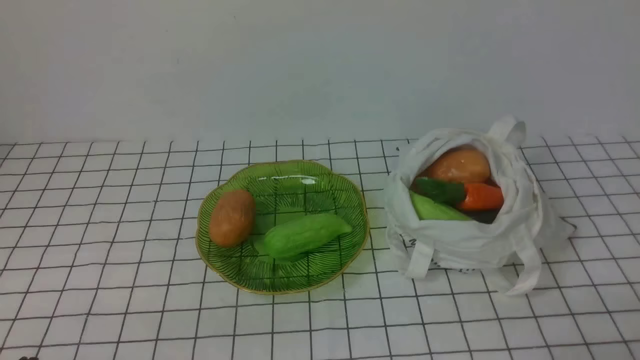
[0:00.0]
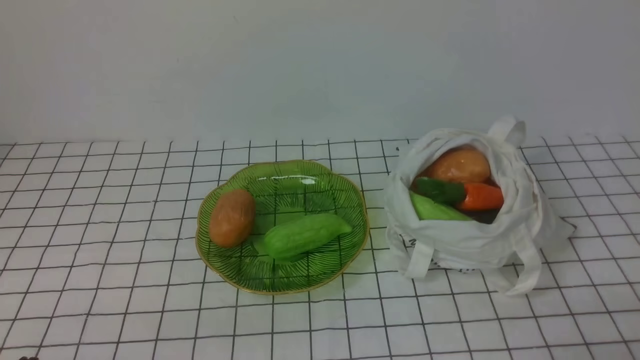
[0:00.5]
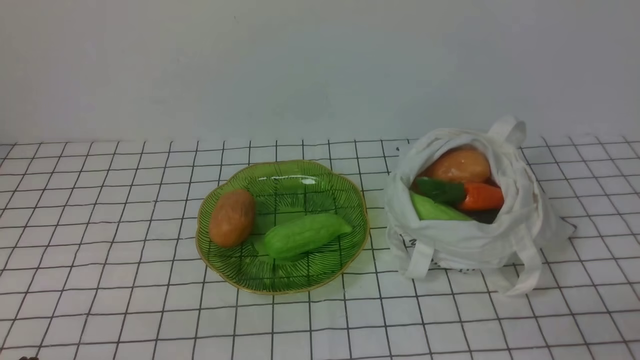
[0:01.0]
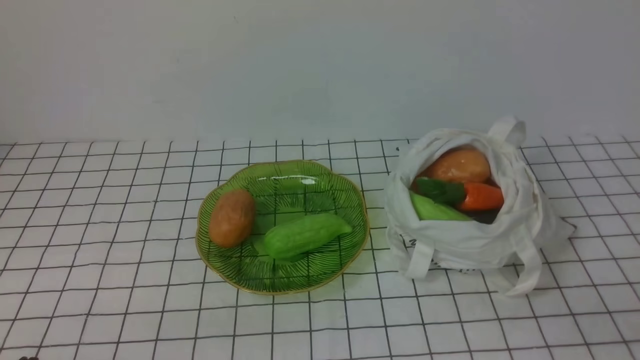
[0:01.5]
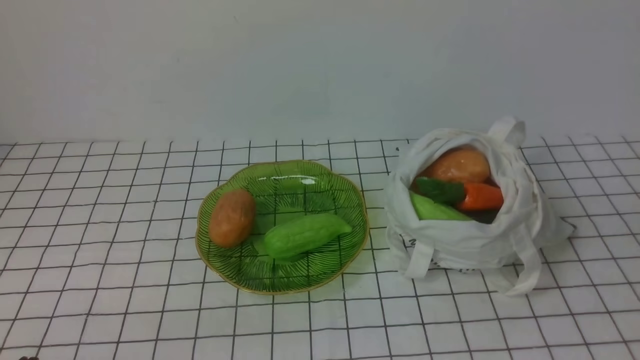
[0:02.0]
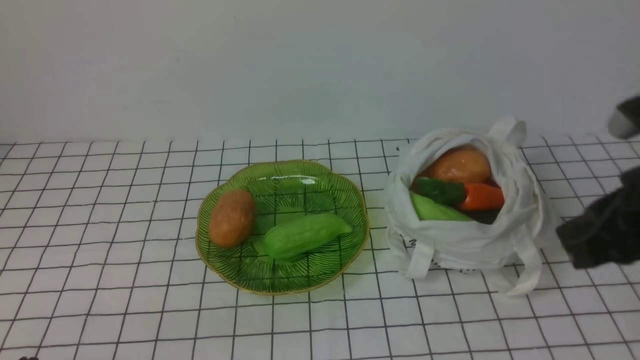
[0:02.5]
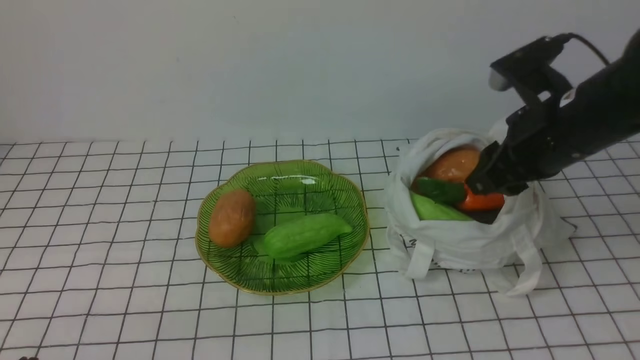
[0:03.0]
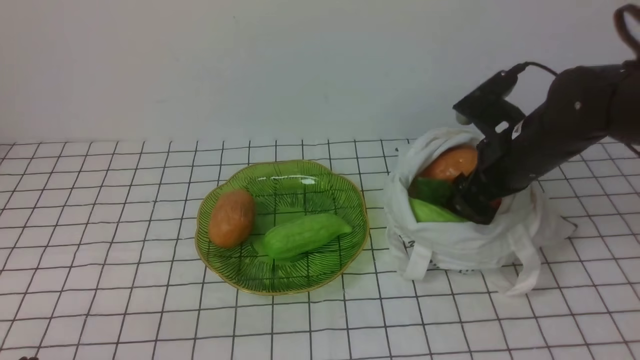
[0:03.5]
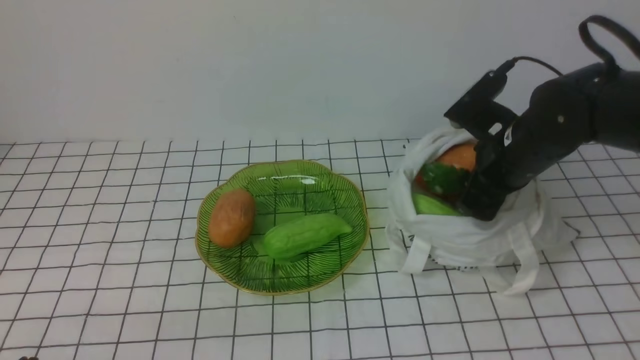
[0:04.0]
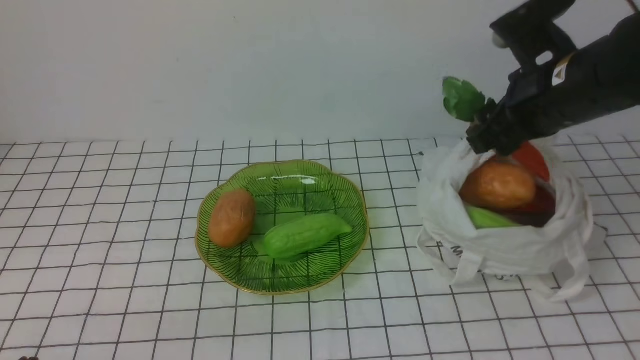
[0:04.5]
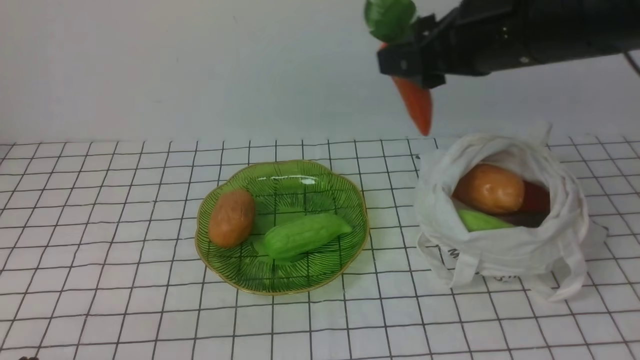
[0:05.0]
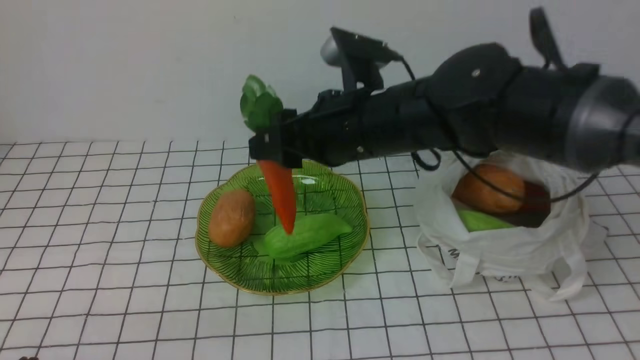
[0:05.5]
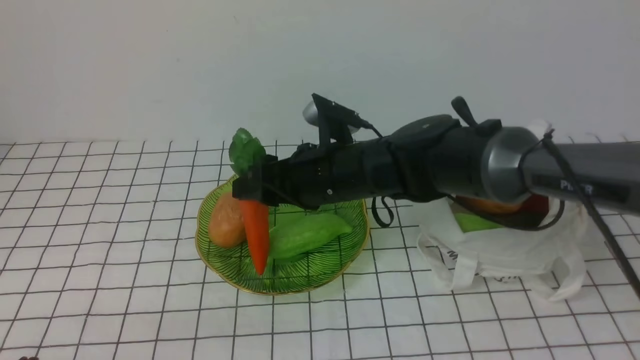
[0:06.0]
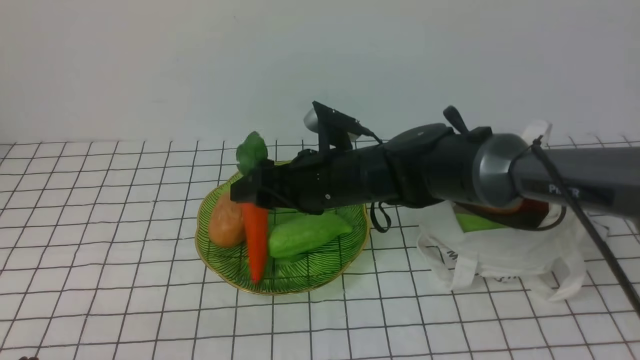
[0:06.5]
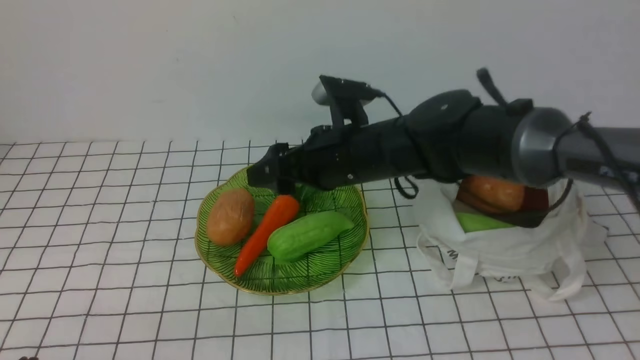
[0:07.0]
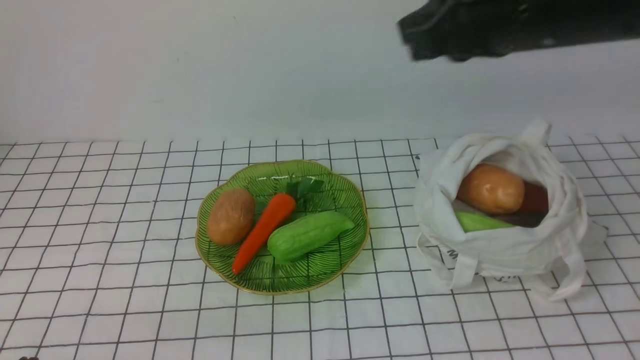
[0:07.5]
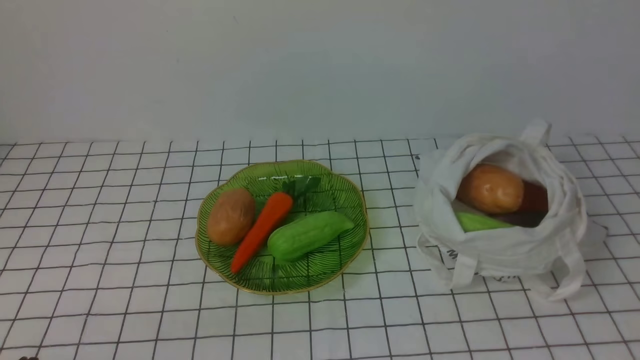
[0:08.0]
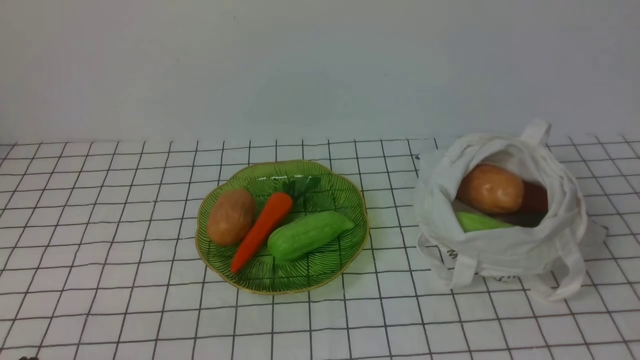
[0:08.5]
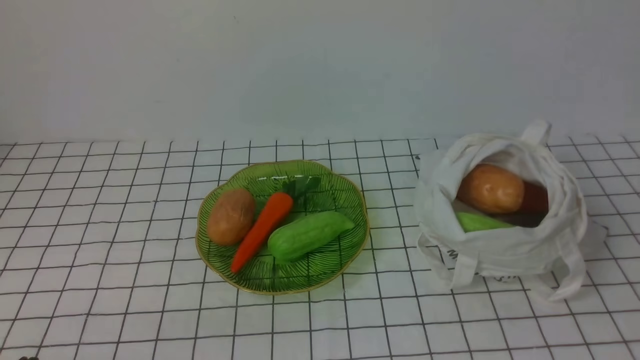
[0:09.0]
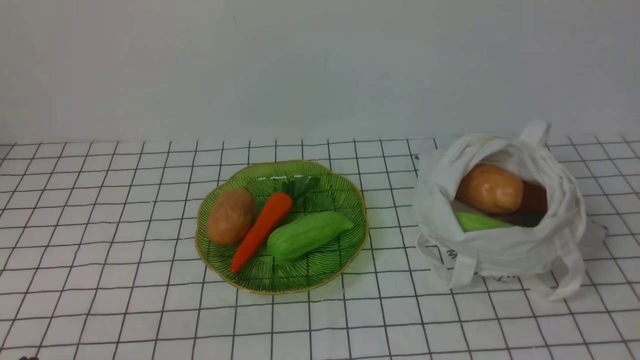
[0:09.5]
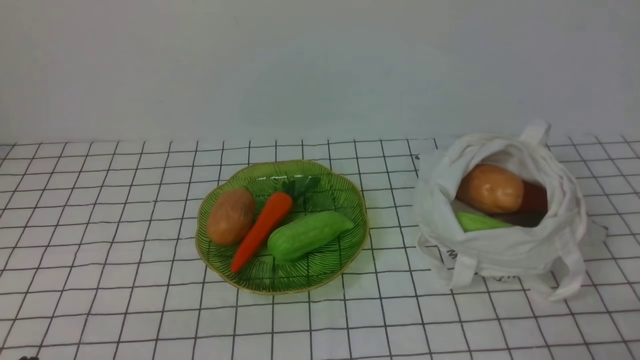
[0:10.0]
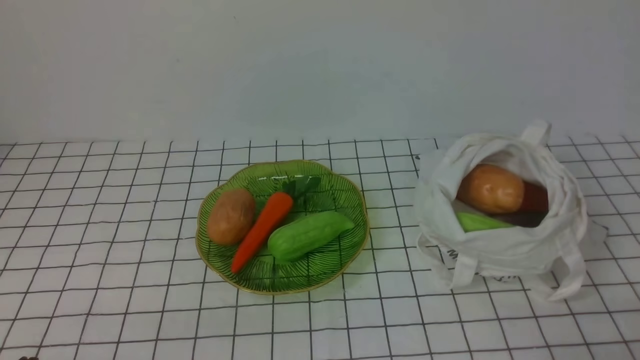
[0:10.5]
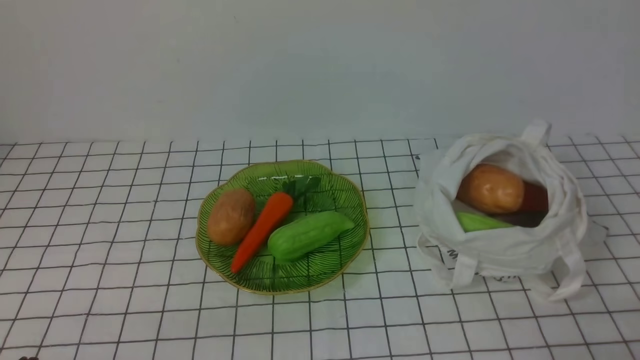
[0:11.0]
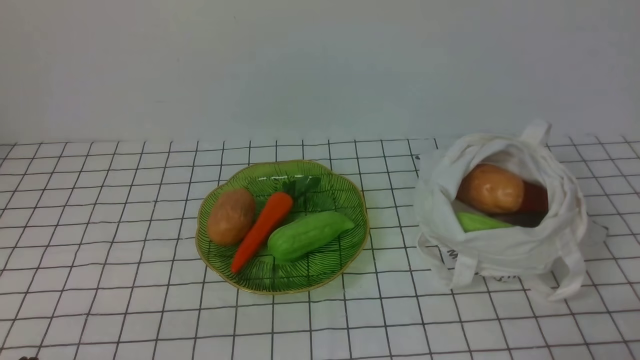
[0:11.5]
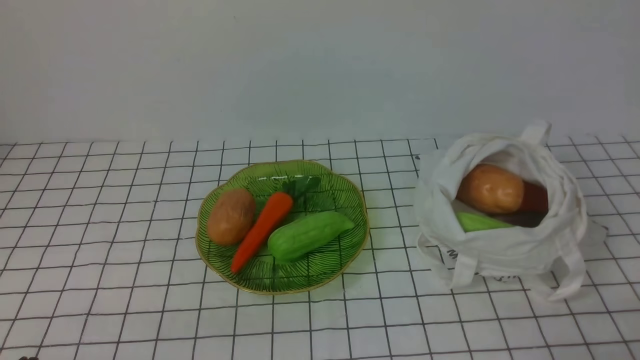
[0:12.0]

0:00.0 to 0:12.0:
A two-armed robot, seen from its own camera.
Task of the whole recording: take vegetables from bag on white checkered tablecloth place on plate.
Step, 0:00.0 to 0:03.5: Grasp the carrot with right gripper.
Step, 0:04.0 to 0:07.0: Place the carrot on the plate with right gripper.
0:02.0 to 0:04.0: The right gripper is displaced forward by roughly 30 cm, and opens.
0:04.0 to 0:06.0: The right gripper shifts about 20 cm to the left.
0:06.0 to 0:08.0: The right gripper shifts about 40 cm to the right, backward and upward, and closes.
0:10.0 to 0:12.0: Neither gripper changes place.

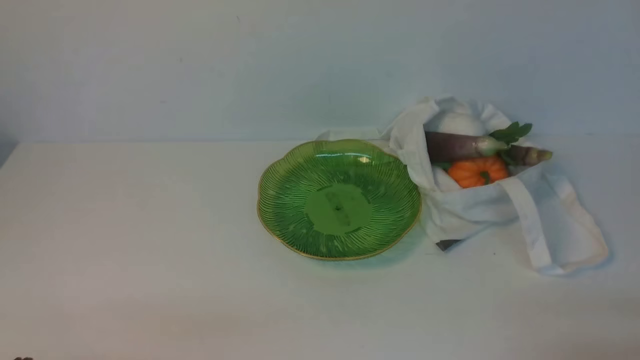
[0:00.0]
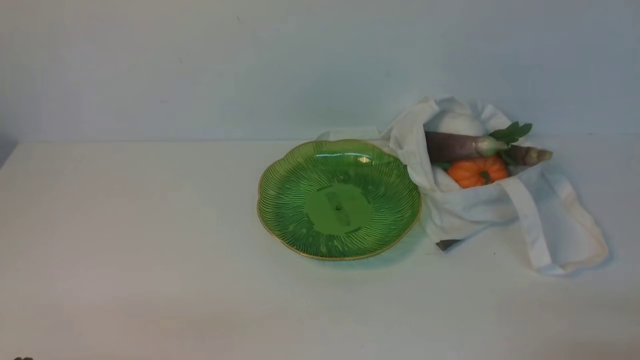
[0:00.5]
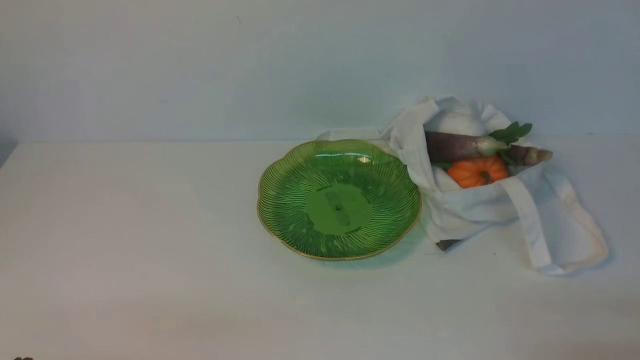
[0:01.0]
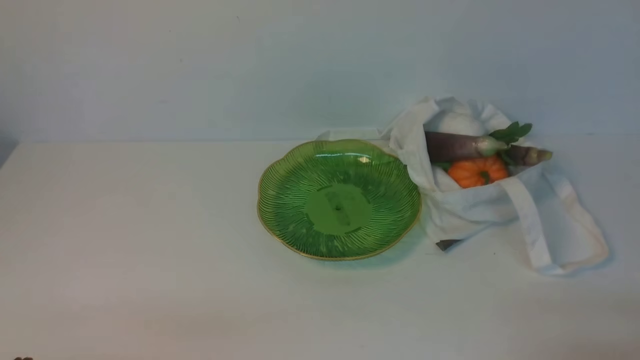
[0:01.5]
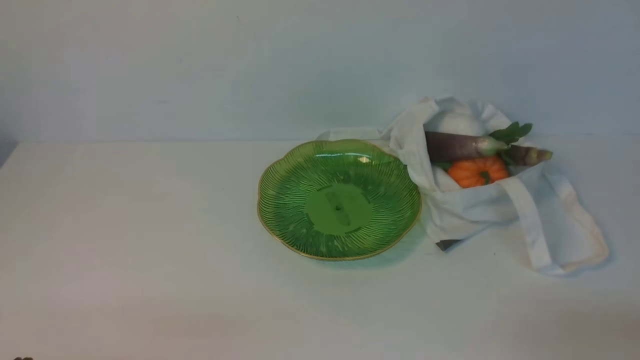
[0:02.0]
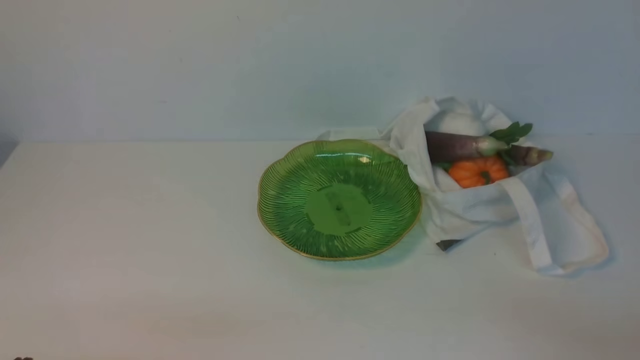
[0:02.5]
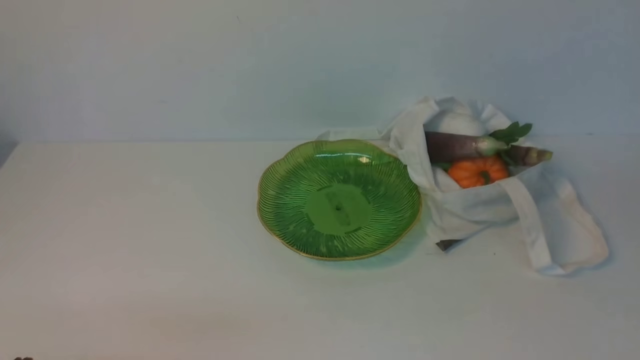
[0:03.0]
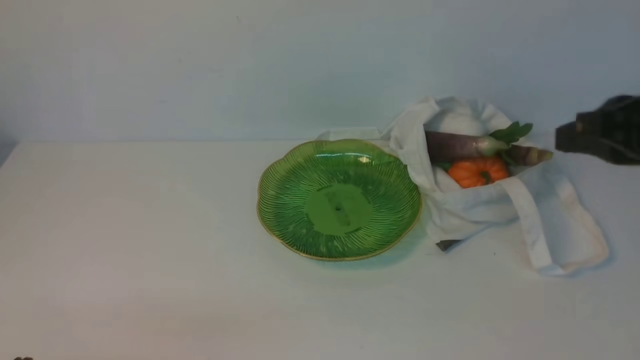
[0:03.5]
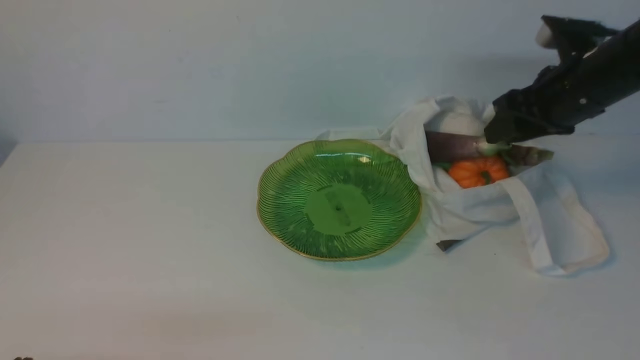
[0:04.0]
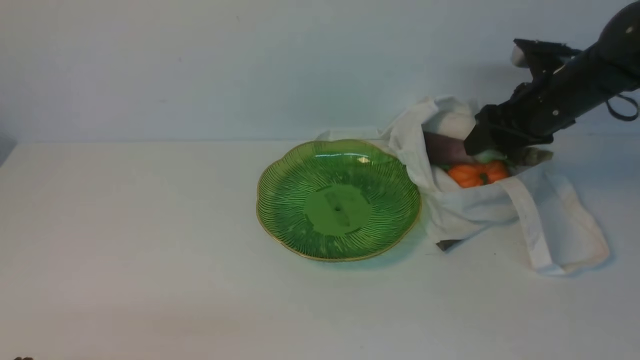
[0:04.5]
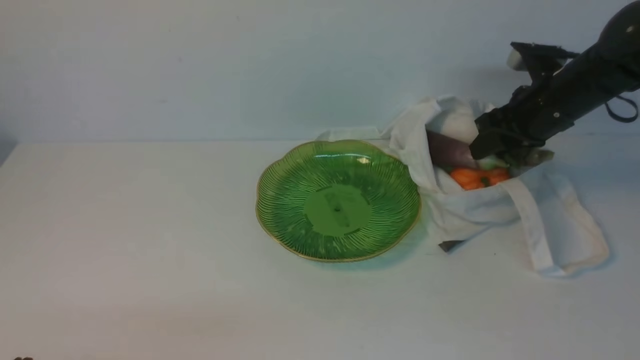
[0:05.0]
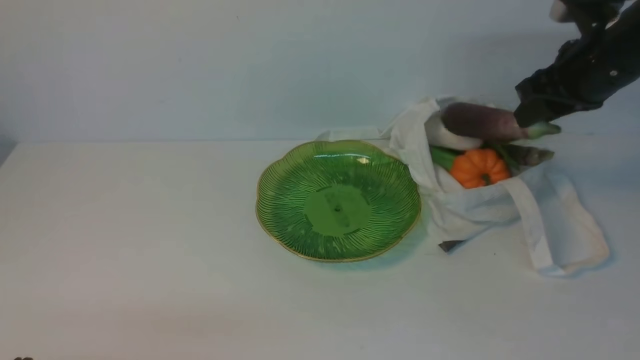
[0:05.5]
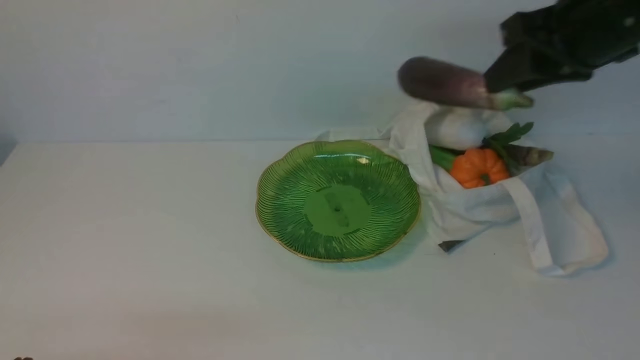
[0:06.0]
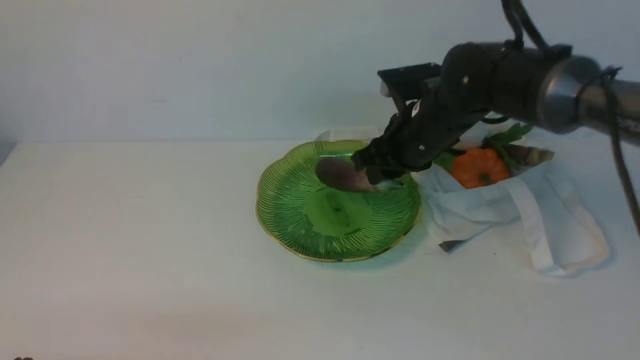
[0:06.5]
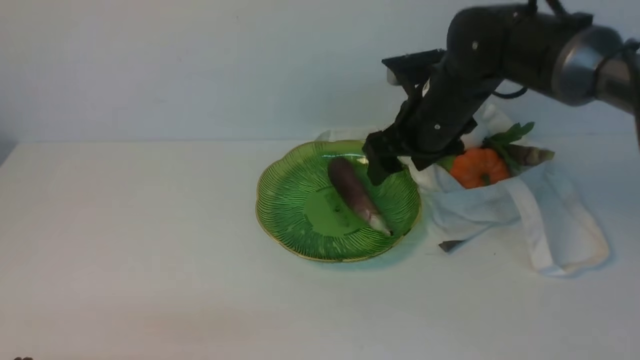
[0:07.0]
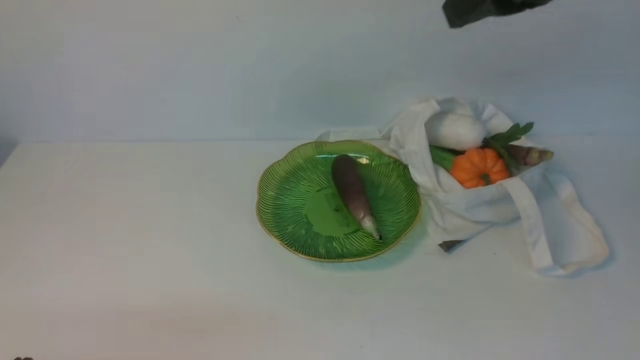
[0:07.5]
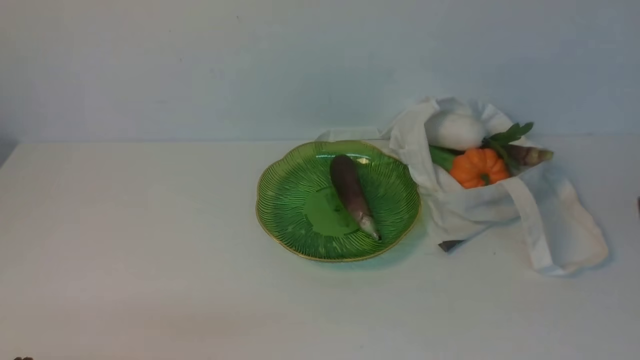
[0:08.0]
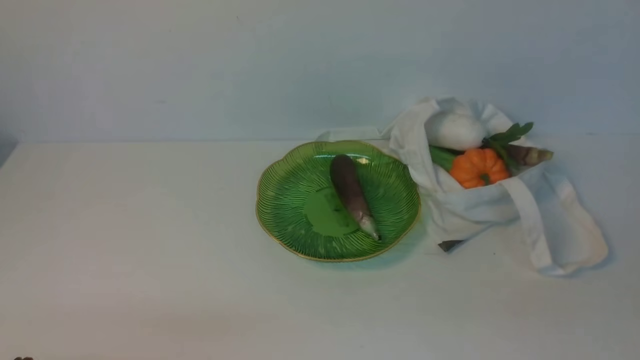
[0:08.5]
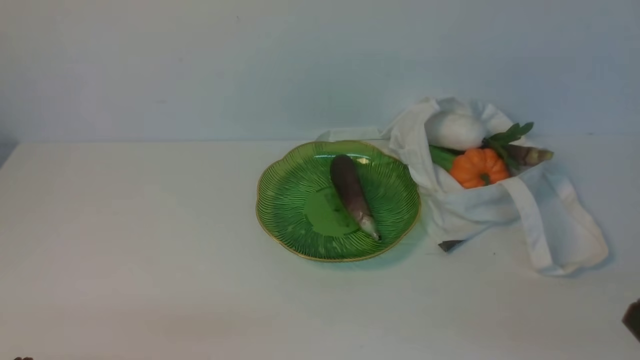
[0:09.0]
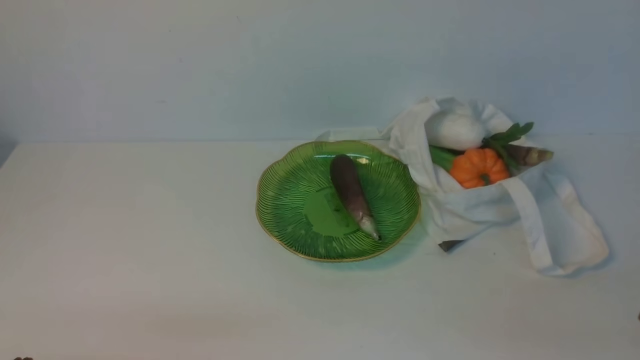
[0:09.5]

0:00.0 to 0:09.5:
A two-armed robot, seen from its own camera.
Task of the whole recording: take vegetables from cloth bag on white table place on plate.
Step, 0:00.0 to 0:04.5: Grasp the eggplant with right gripper.
Step, 0:05.0 to 0:06.5: Place the eggplant on the plate with right gripper.
0:02.0 to 0:04.0: The right gripper moves forward, some 35 cm, and opens.
0:04.0 to 0:05.5: The right gripper moves upward, approximately 5 cm.
0:05.5 to 0:07.5: The right gripper shifts roughly 20 cm upward, backward and to the left, and opens, then closes once more.
0:07.5 to 0:09.5: The right gripper is displaced downward, backward and to the right by roughly 35 cm.
